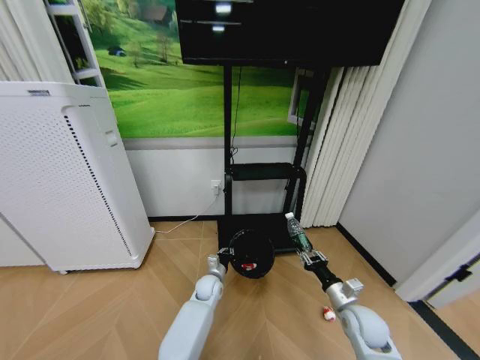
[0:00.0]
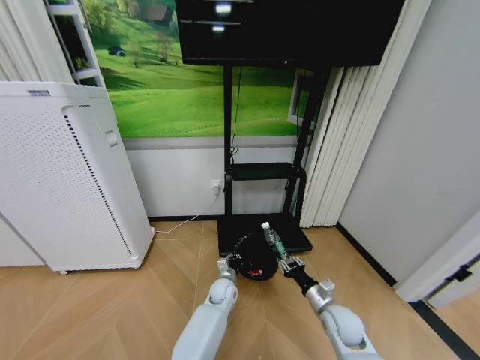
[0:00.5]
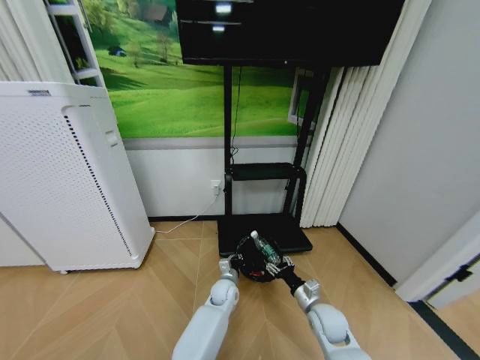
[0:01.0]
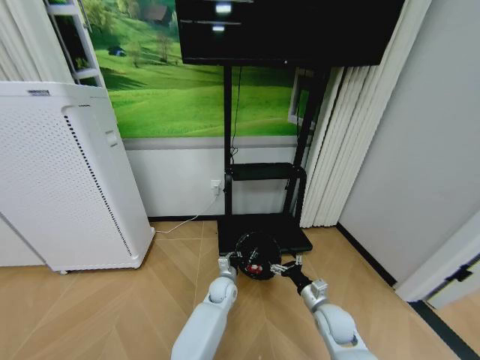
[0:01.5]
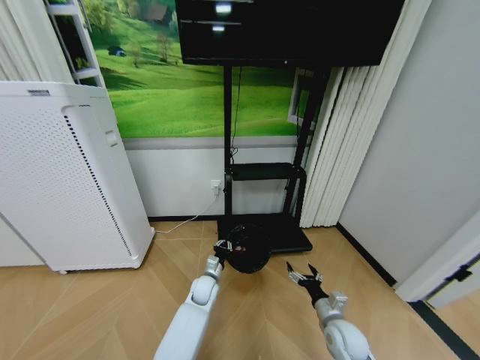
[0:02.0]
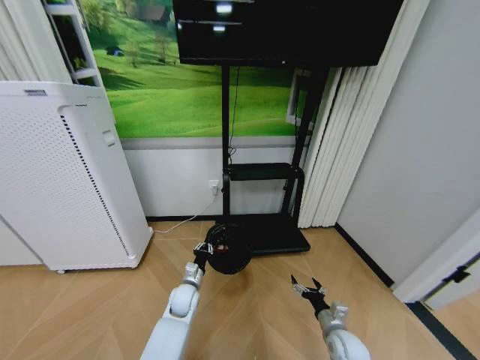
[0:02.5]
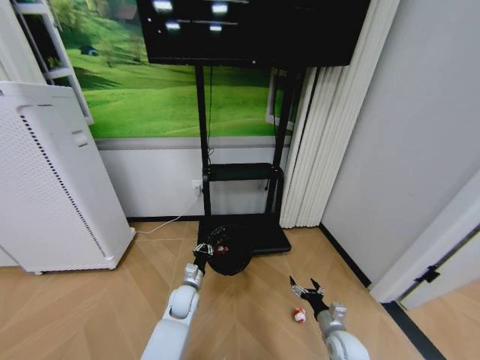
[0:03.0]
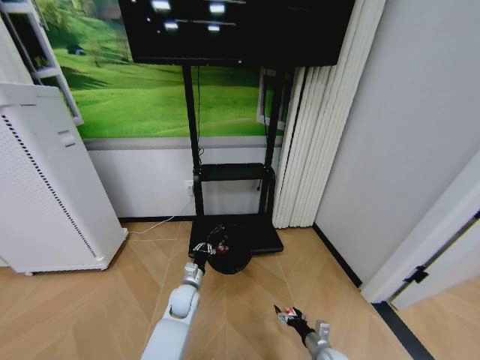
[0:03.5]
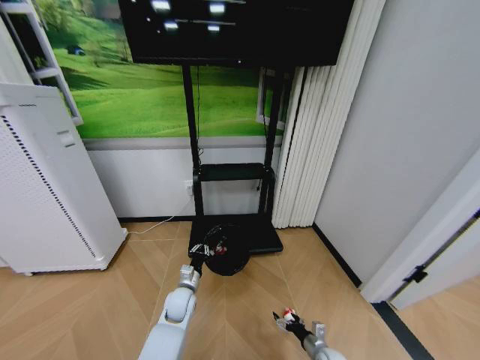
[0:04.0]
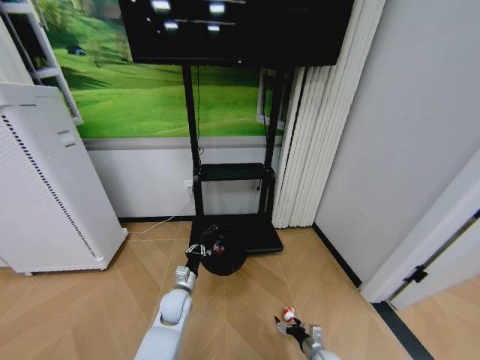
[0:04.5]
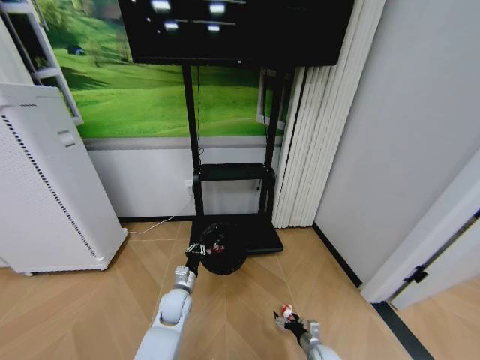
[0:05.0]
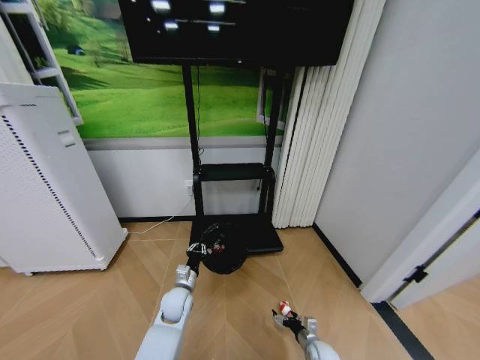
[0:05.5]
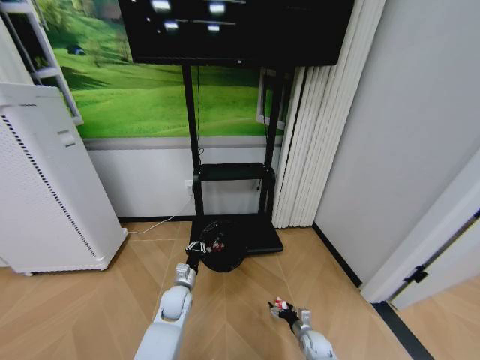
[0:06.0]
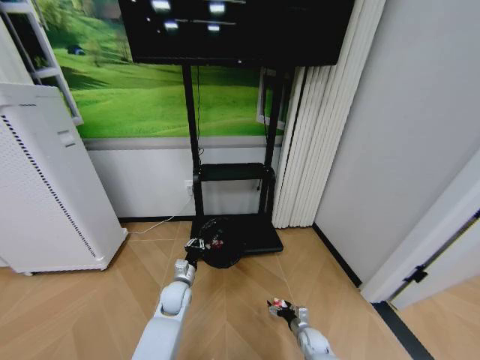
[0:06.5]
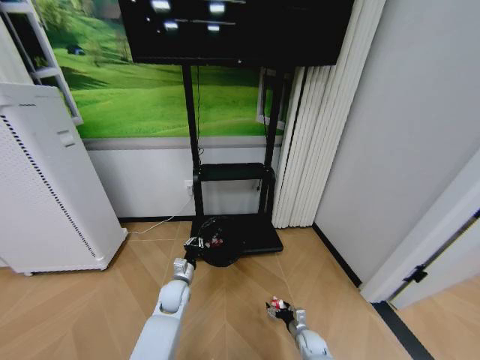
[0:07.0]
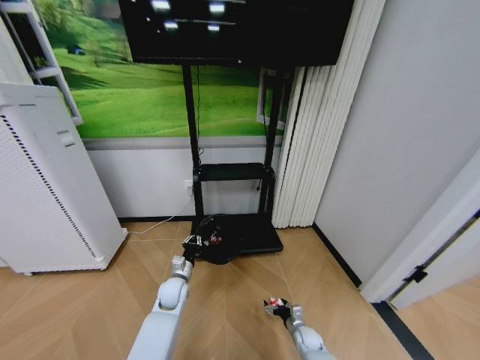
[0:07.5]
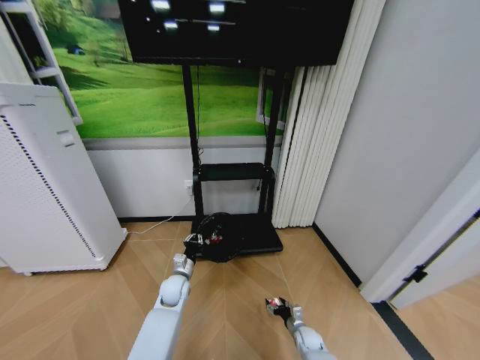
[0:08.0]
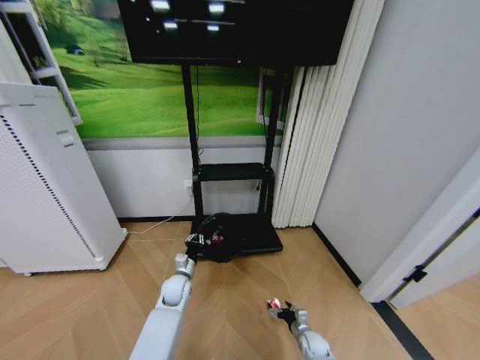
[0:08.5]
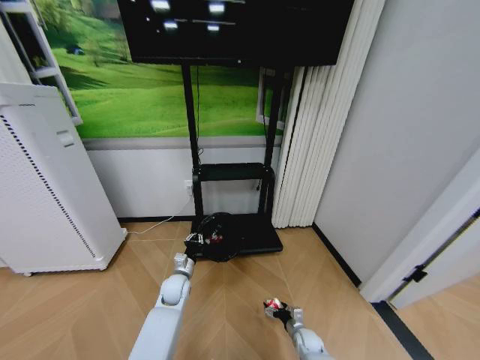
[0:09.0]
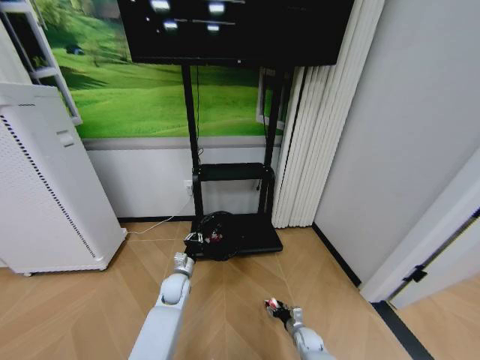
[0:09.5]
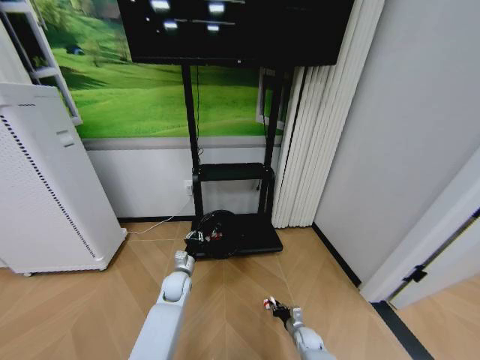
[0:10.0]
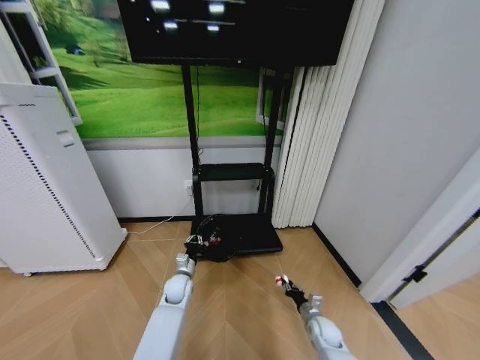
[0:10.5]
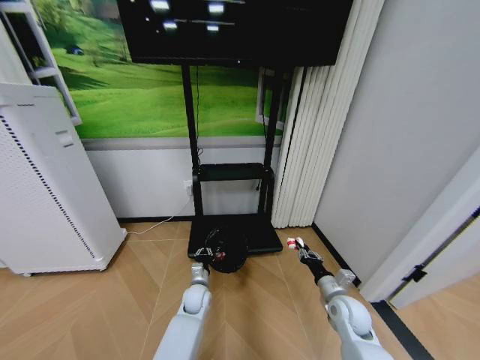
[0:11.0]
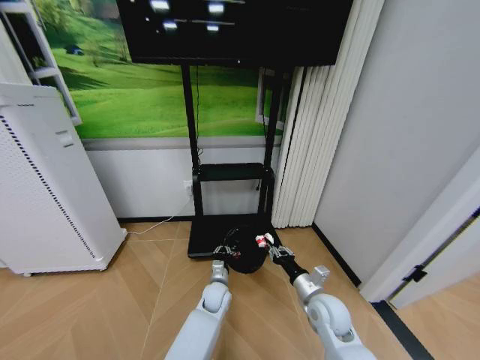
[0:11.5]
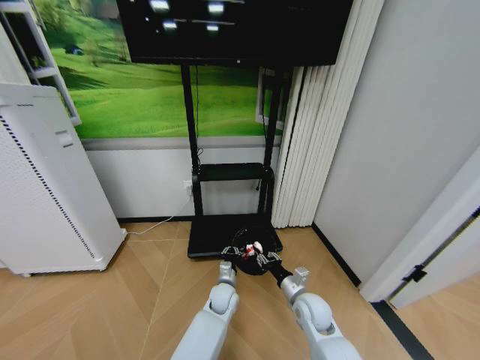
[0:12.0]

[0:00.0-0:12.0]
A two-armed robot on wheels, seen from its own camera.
Task of the whole recording: Pick up the trash bin and place the garbage on the floor into it.
0:00.0 to 0:02.0: The right gripper moves approximately 5 cm, and opens.
0:02.0 to 0:04.0: The left gripper heads to the left and backward, covering about 10 cm. The right gripper travels downward by approximately 15 cm.
0:04.0 to 0:06.0: The right gripper is displaced forward by about 5 cm.
0:06.0 to 0:08.0: The grippers stay close to where they were, moving slightly.
0:08.0 to 0:10.0: The right gripper closes up.
0:10.0 to 0:12.0: The right gripper moves upward, about 25 cm. Meanwhile the left gripper is displaced to the right by about 15 cm.

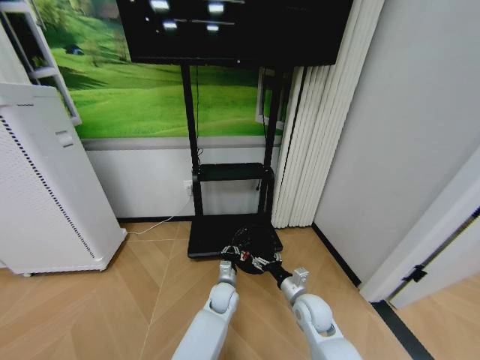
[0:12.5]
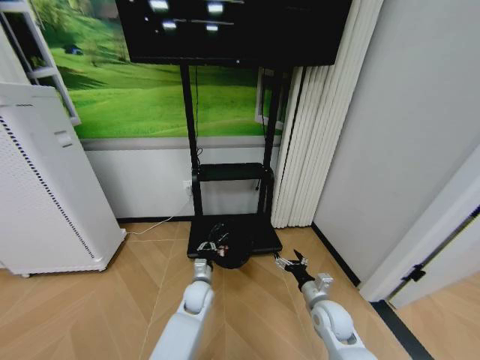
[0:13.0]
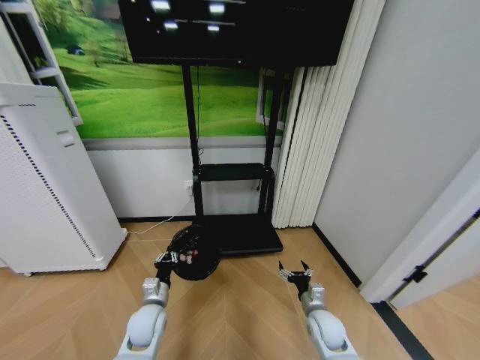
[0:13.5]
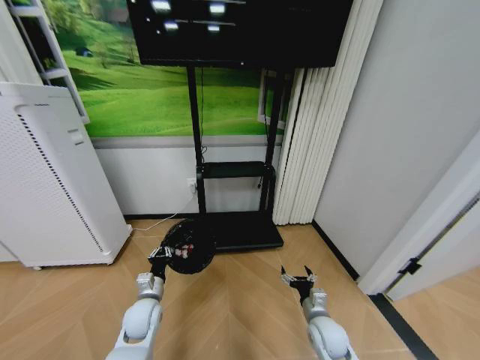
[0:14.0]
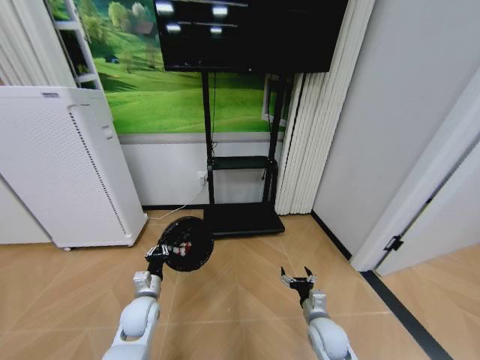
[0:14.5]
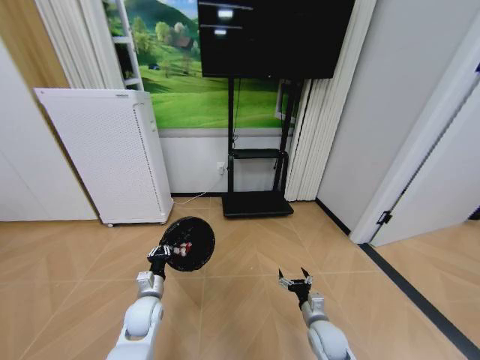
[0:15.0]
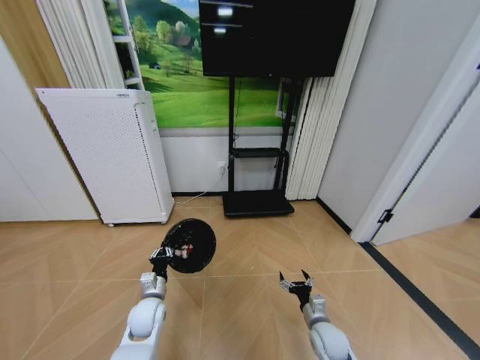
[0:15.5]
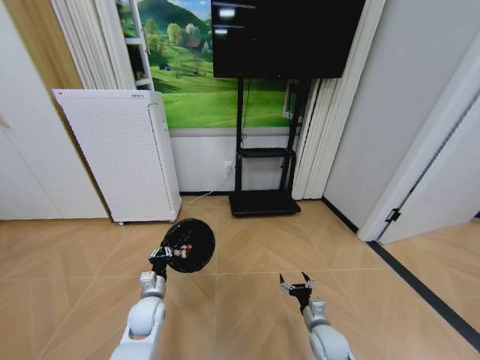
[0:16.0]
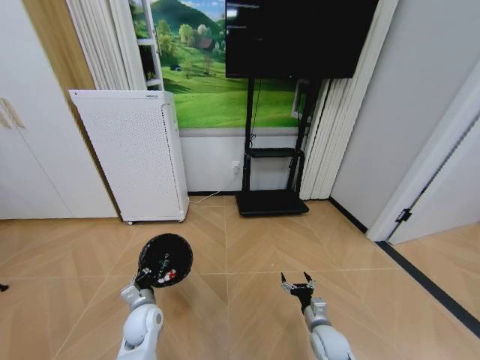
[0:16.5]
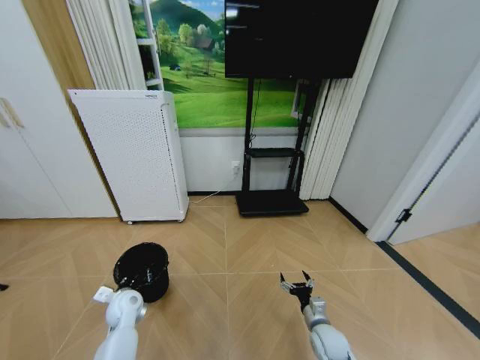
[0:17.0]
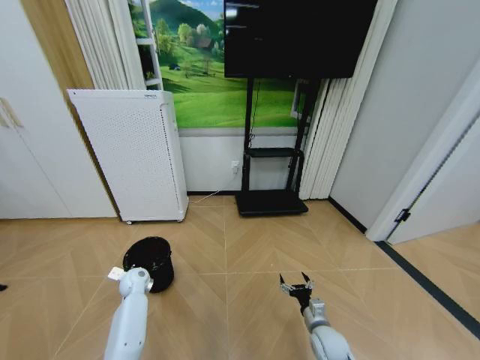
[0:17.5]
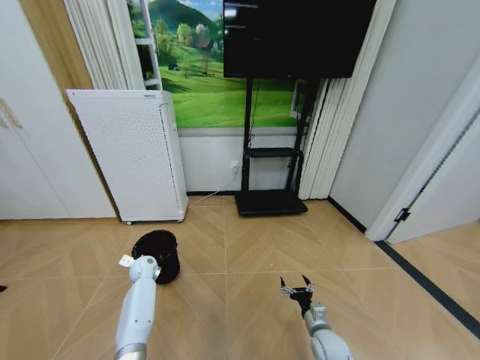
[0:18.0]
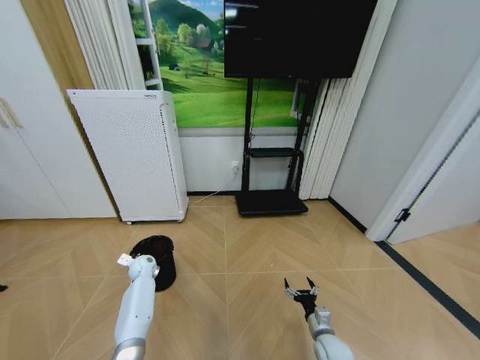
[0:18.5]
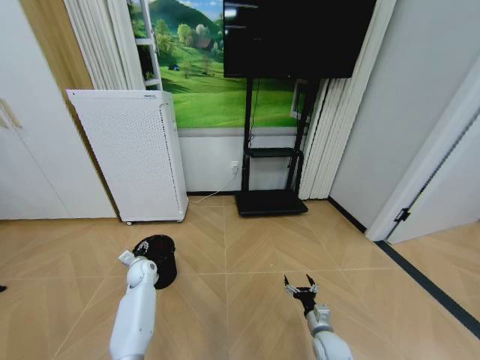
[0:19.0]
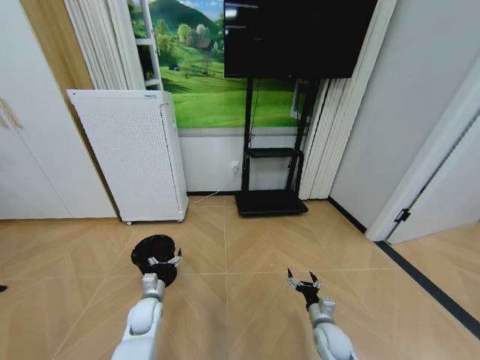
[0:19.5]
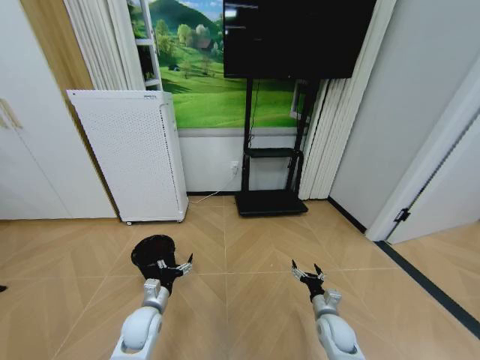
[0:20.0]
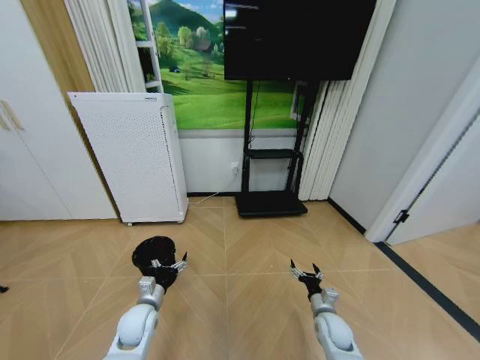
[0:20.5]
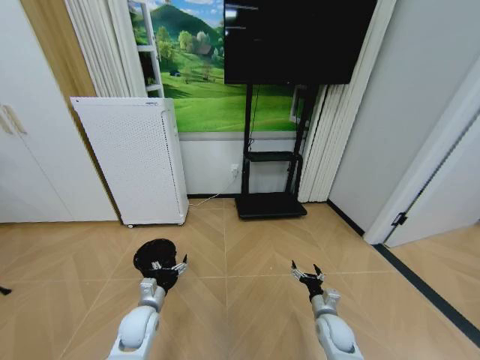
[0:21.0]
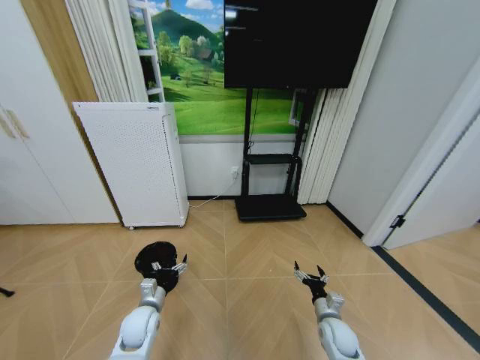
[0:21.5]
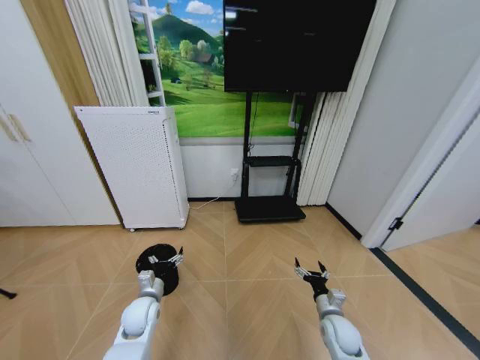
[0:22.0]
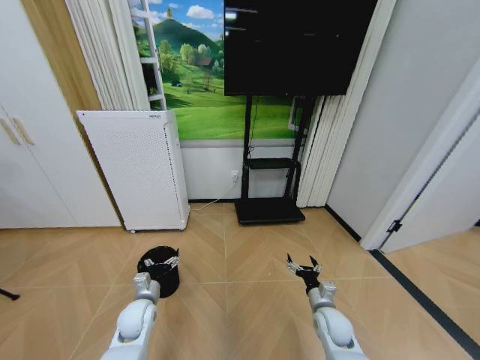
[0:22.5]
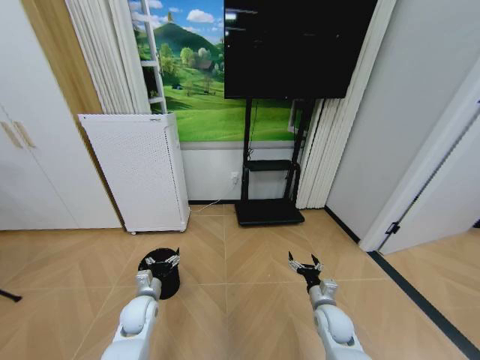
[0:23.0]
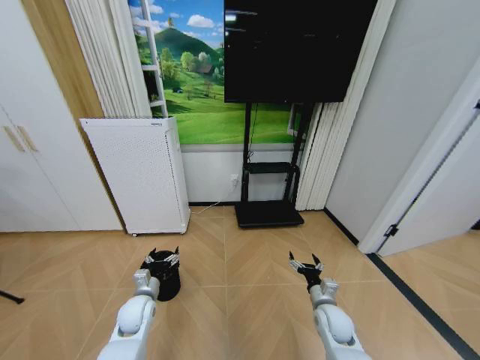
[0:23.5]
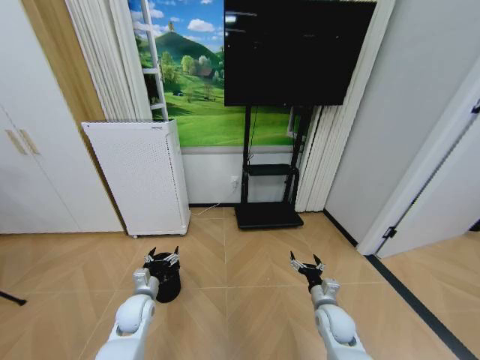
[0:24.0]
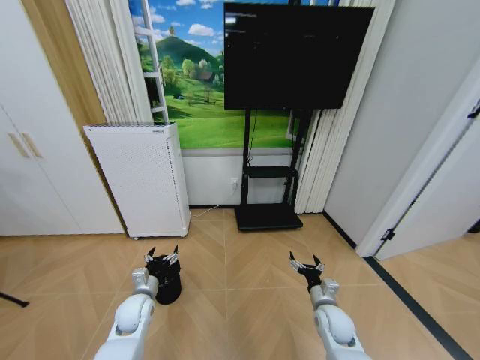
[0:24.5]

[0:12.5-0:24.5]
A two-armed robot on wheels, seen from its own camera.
Task of the whole recording: Pick up the trash bin and place the garbage on the floor into it.
0:12.5 to 0:14.5: The left gripper is displaced to the left by about 25 cm, while the right gripper shifts by about 10 cm.
0:16.5 to 0:18.5: The left gripper moves forward and to the left, some 20 cm.
0:18.5 to 0:20.5: The left gripper goes approximately 20 cm backward and to the right, and opens. Meanwhile the right gripper changes place by about 5 cm.
0:20.5 to 0:24.5: The grippers make only small movements.
